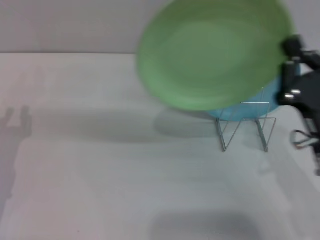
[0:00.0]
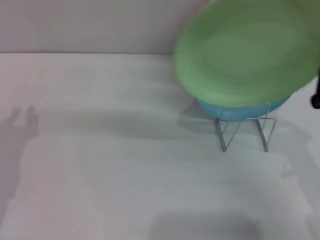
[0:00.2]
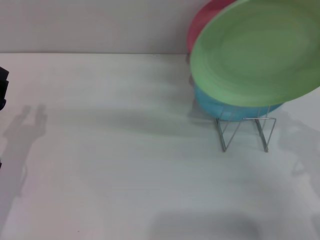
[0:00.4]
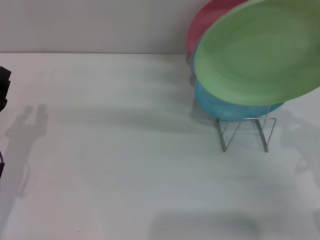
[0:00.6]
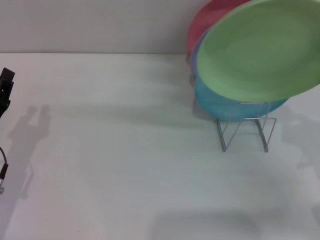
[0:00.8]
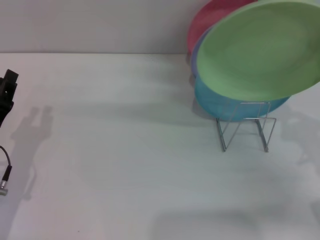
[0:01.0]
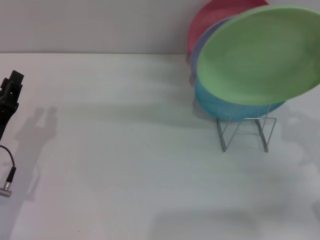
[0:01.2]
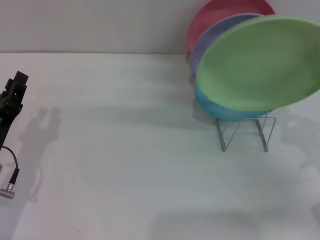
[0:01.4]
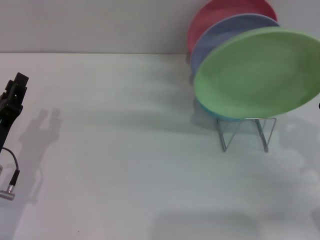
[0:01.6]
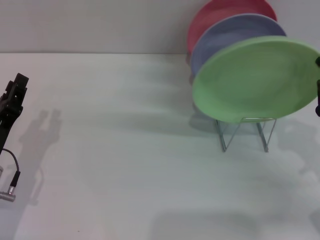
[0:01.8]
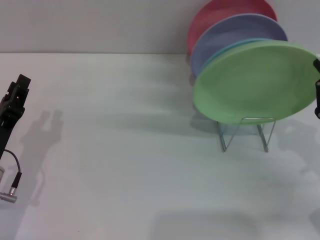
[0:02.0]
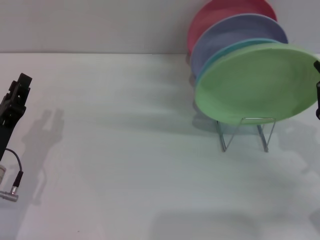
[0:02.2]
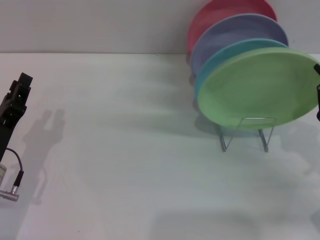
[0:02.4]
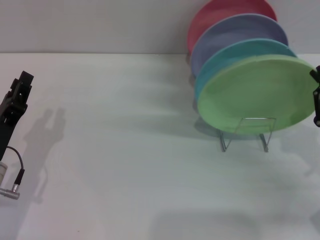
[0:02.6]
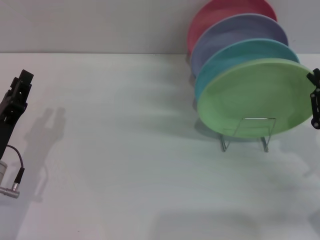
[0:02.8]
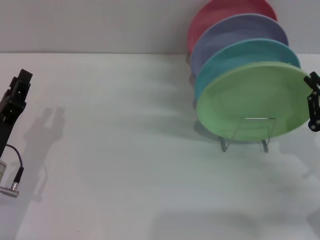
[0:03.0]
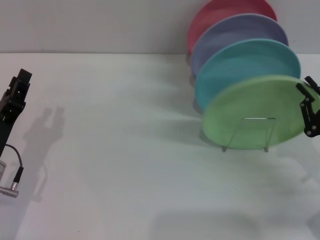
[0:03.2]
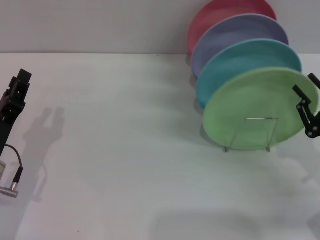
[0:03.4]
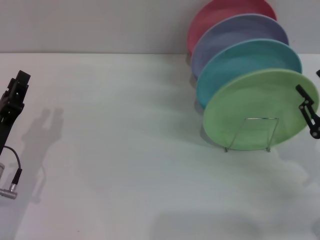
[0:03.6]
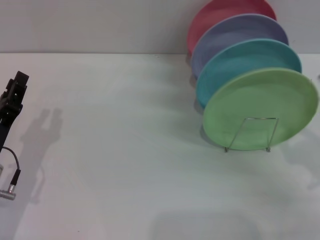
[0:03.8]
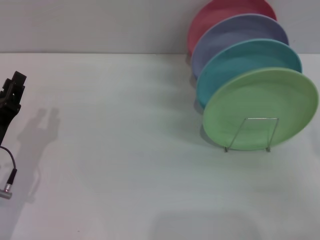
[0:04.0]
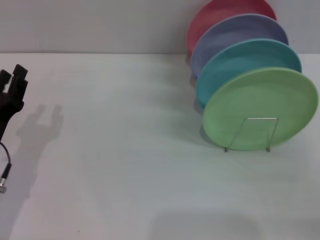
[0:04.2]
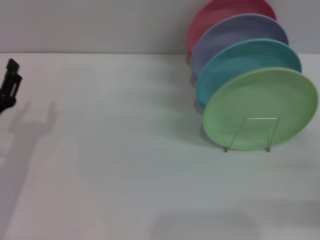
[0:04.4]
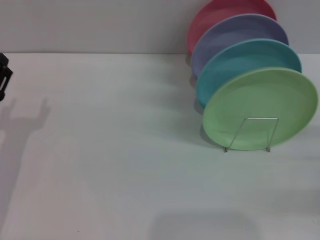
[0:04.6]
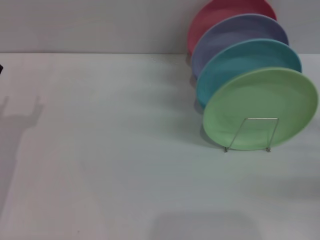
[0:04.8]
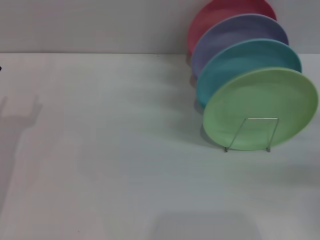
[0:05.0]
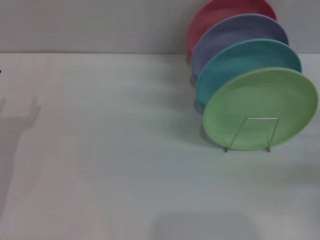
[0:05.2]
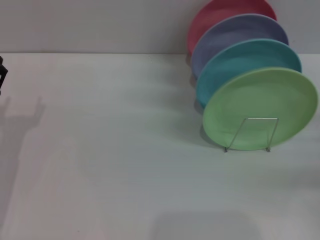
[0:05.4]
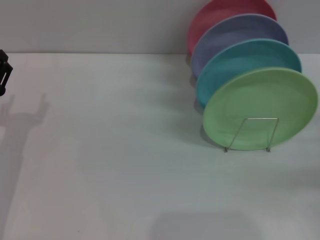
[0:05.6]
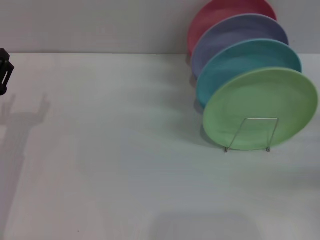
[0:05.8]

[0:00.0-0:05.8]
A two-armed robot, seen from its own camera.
Task of the whole recording: Grip the plate with one hand, pass it to the other, then set it on the shelf.
Step, 0:00.0 to 0:03.6: Place the plate on the shelf with the right gripper.
0:00.0 to 0:01.4: The right gripper moves to the right, about 10 cm.
0:01.4 to 0:02.8: The grippers make only small movements.
0:02.8 to 0:04.4: The right gripper shifts roughly 5 cm to the right, and opens up.
0:04.4 to 0:05.8: The left gripper opens.
